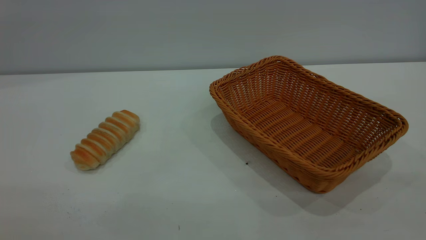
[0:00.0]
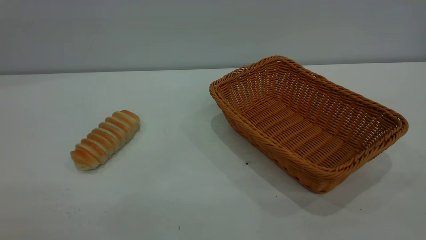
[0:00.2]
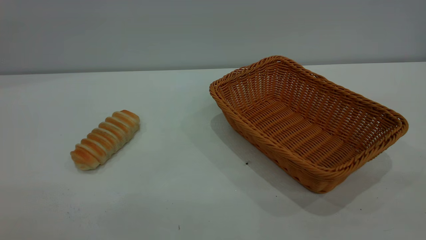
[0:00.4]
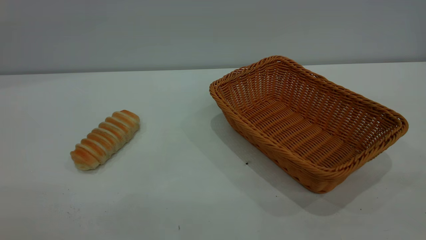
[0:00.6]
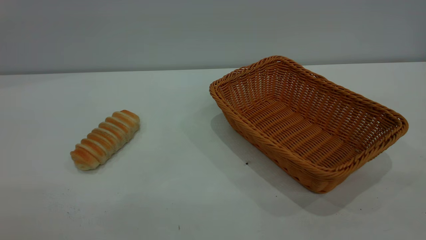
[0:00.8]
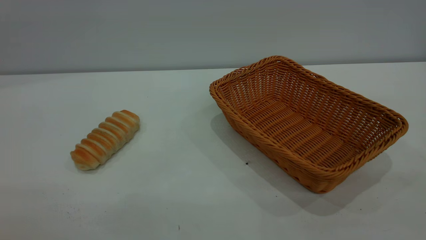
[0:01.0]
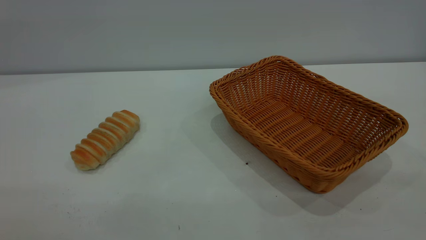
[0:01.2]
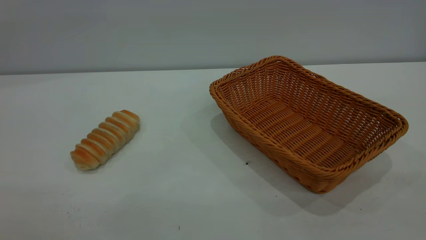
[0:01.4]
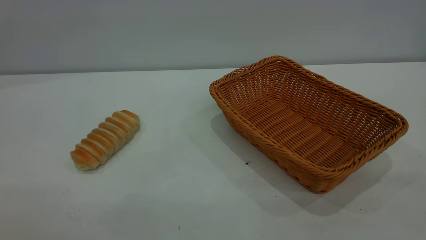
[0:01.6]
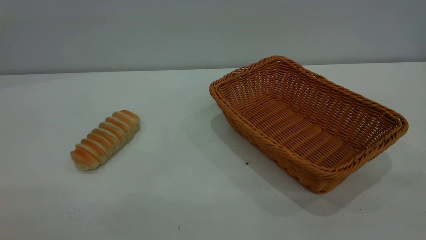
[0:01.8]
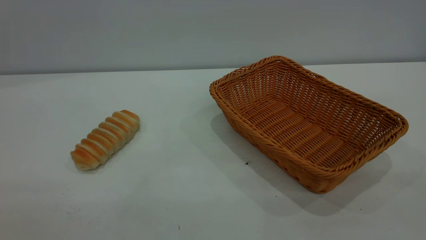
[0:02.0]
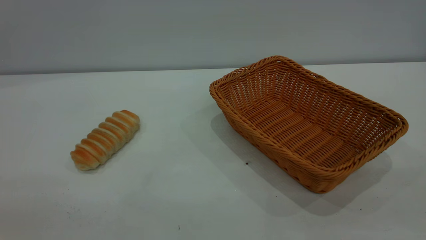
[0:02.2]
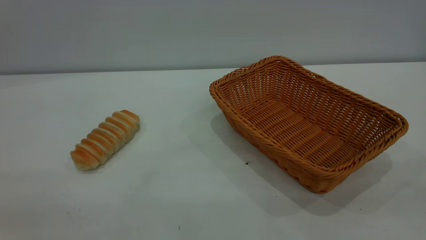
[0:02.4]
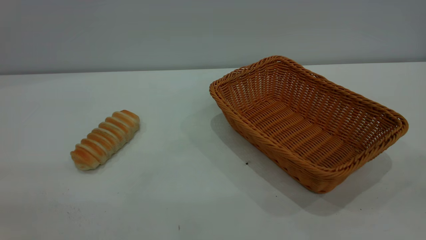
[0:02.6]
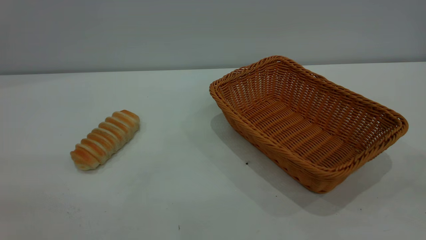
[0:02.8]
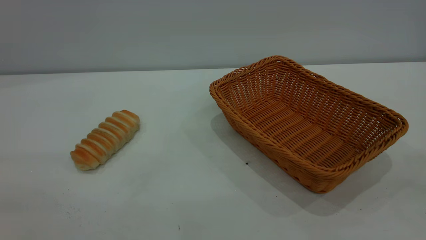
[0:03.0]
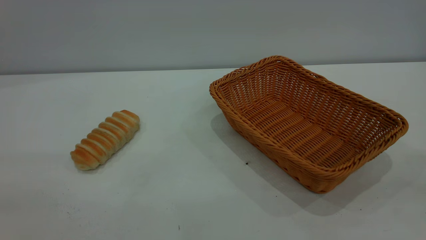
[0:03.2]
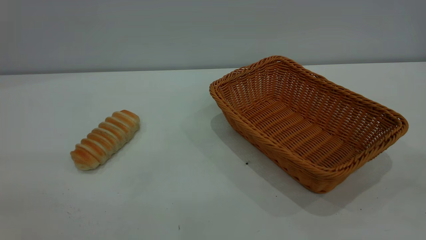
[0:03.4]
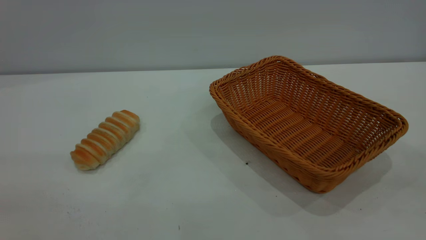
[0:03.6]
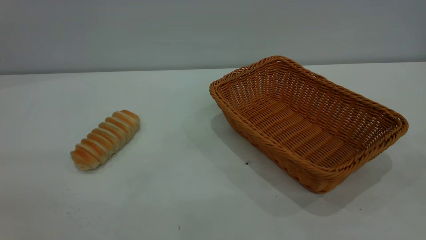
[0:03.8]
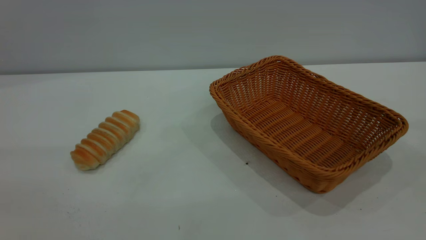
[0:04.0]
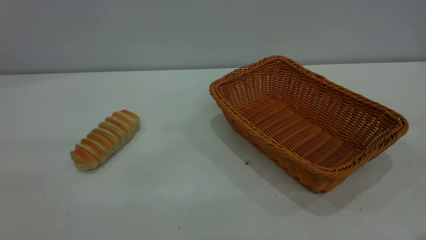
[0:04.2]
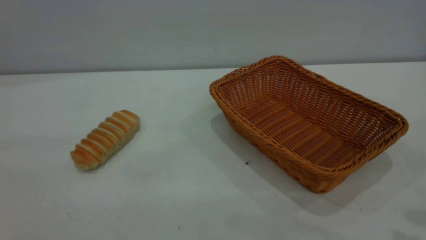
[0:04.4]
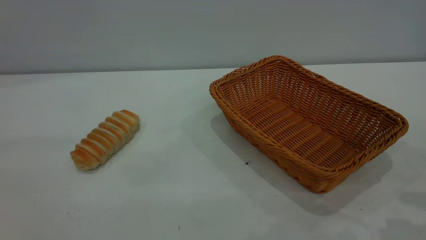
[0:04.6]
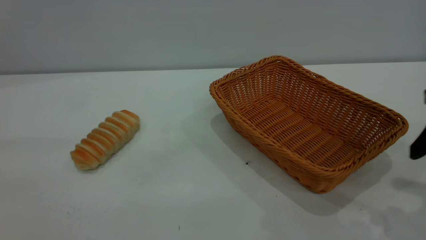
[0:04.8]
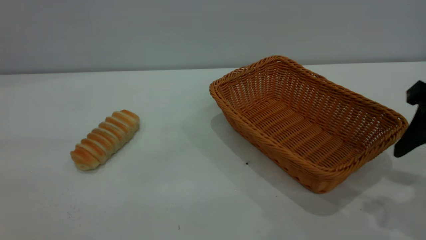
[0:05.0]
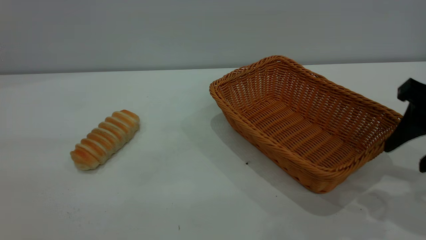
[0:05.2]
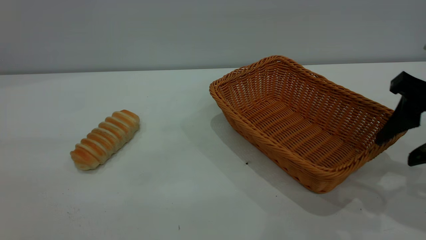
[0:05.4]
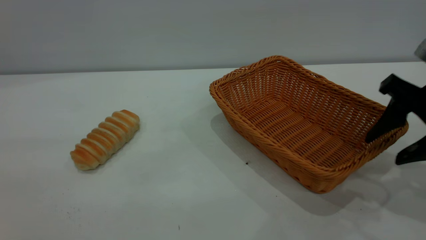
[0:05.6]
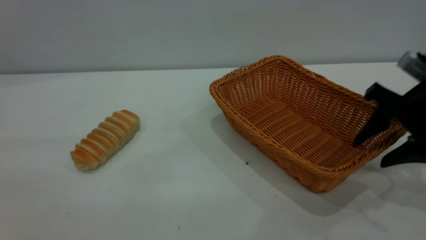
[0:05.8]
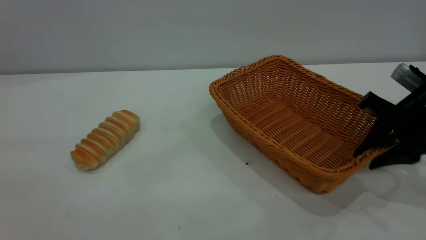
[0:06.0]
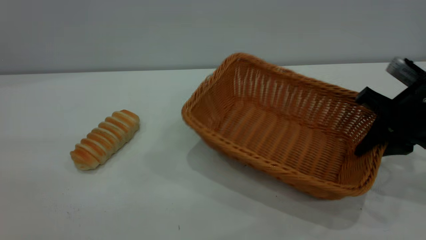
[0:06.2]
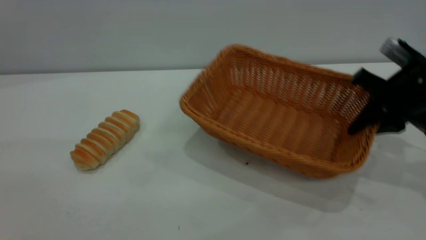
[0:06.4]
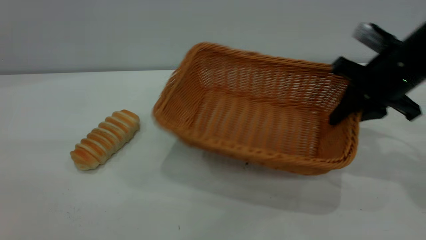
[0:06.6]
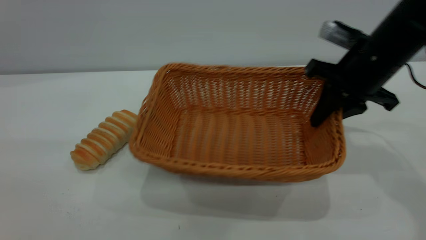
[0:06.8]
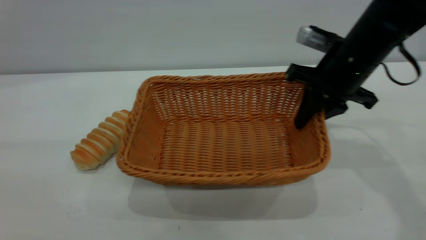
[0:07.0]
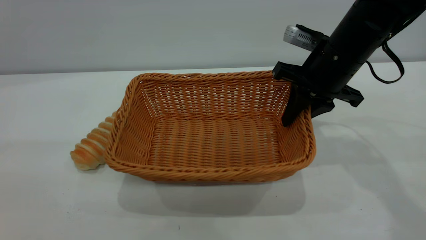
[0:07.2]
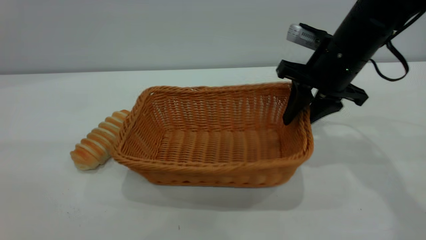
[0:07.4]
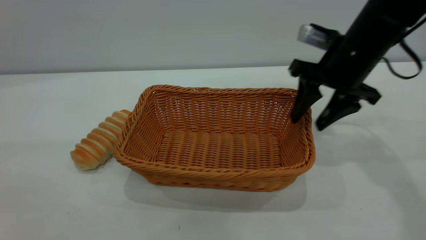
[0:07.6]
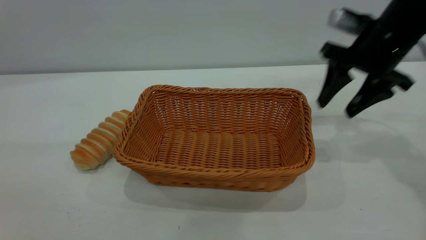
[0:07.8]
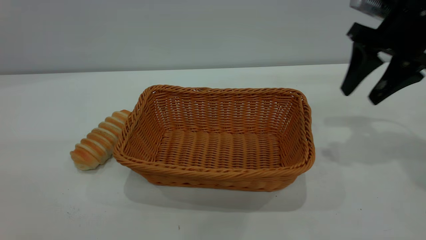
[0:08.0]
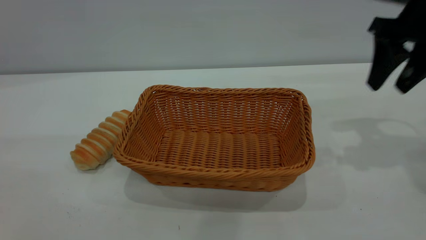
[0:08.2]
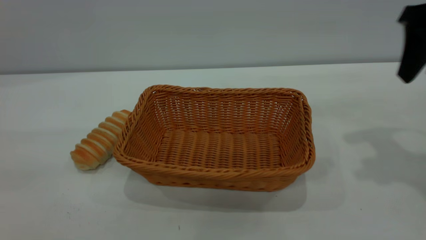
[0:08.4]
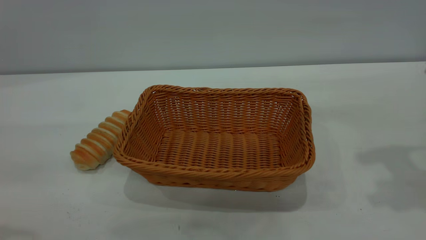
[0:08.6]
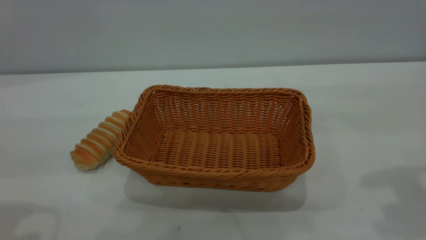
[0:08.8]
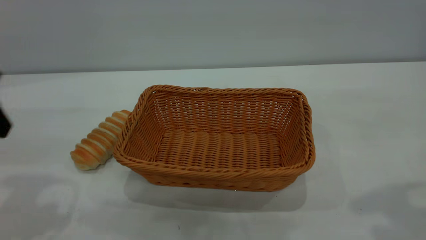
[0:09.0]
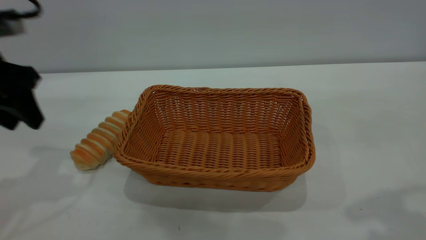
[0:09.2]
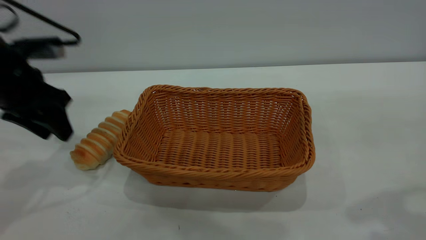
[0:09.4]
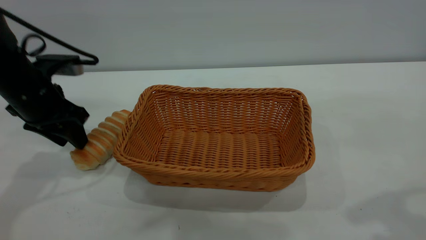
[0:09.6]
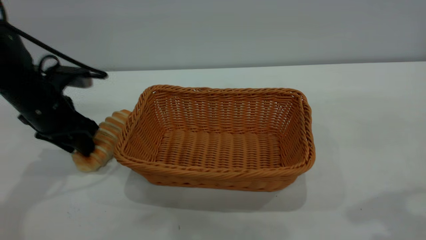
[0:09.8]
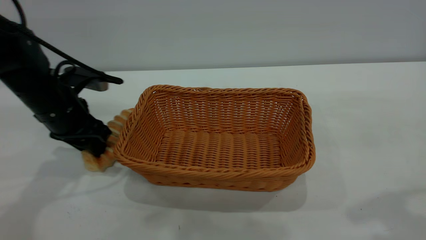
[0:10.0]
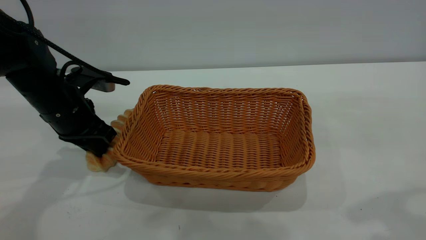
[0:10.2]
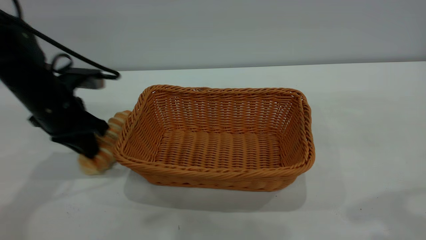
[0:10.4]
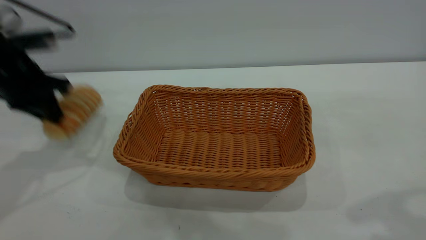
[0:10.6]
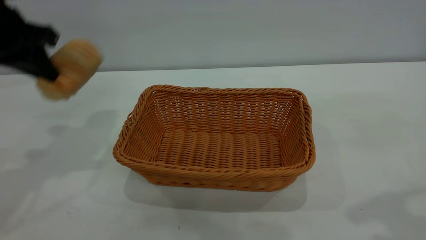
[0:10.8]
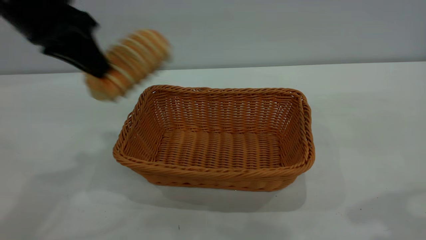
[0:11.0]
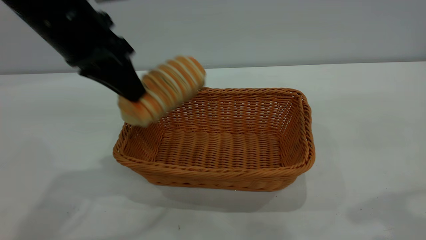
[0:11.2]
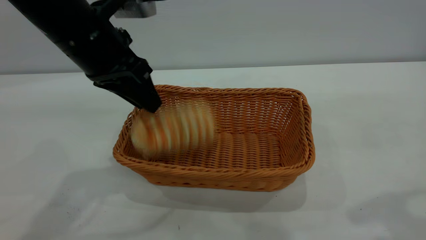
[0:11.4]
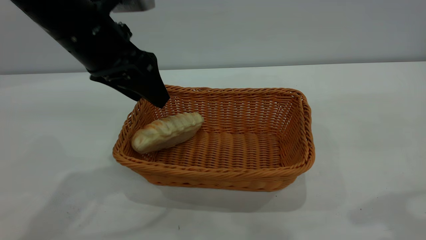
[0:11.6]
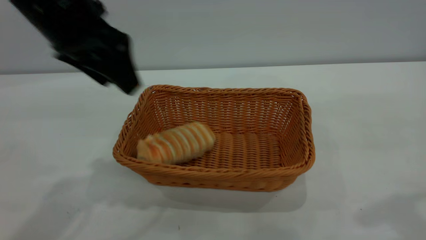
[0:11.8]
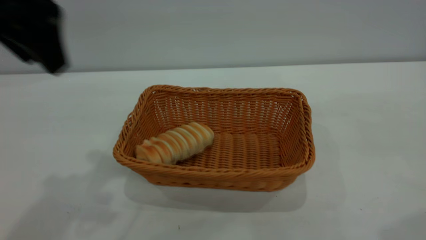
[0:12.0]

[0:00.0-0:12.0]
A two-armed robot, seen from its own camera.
Task of the whole recording: One hand grasps the yellow basket and places it in the middle of the table, while the other hand picks up the long bread and puts it into the yellow basket.
Step, 0:00.0 to 0:07.6: Move the basket to the center of view.
Step, 0:10.8 to 0:11.6: place the bread into the basket.
0:00.0 to 0:01.6: The two grippers keep their place.
0:04.4 to 0:06.0: The right gripper moves downward and forward, some 20 cm, and closes.
0:06.0 to 0:07.6: The right gripper travels forward and to the left by some 10 cm, and opens.
0:07.6 to 0:09.0: The right gripper heads backward and upward, covering some 25 cm. Meanwhile the left gripper is displaced forward and downward by some 20 cm.
0:09.0 to 0:10.4: The left gripper travels downward and forward by roughly 15 cm, and closes its fingers.
0:10.4 to 0:12.0: The left gripper moves up and down over about 20 cm, changing direction 2 times, and opens its fingers; the right gripper shifts by about 5 cm.
